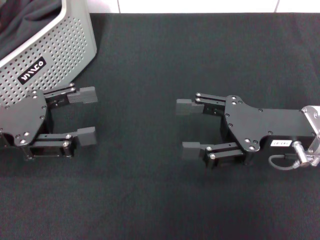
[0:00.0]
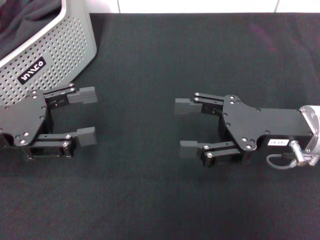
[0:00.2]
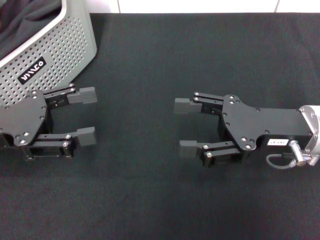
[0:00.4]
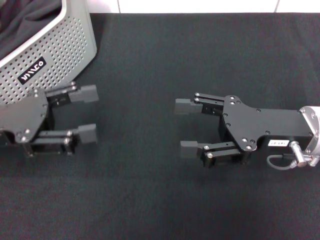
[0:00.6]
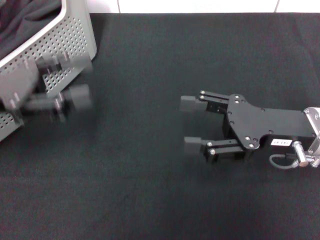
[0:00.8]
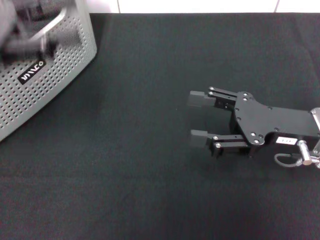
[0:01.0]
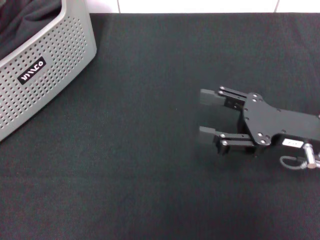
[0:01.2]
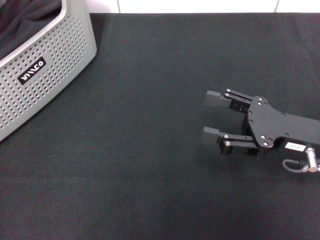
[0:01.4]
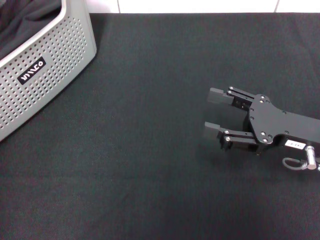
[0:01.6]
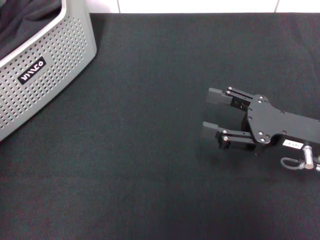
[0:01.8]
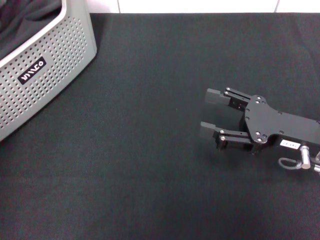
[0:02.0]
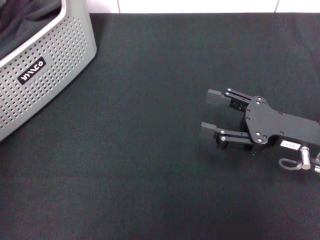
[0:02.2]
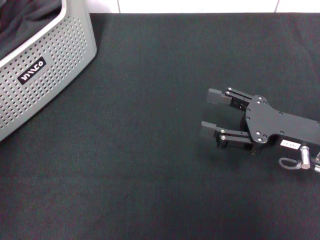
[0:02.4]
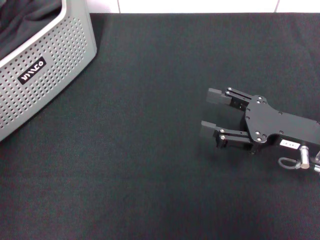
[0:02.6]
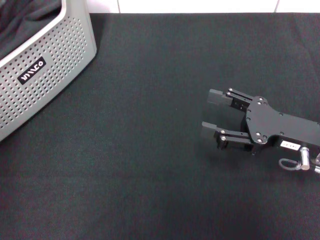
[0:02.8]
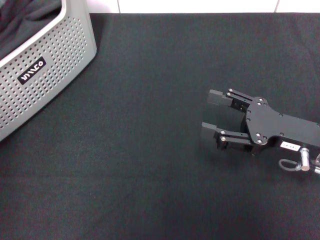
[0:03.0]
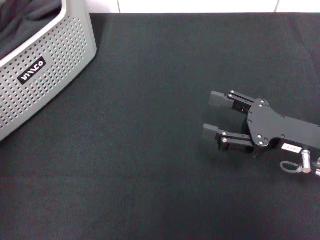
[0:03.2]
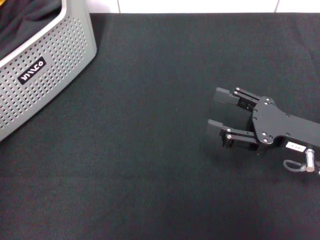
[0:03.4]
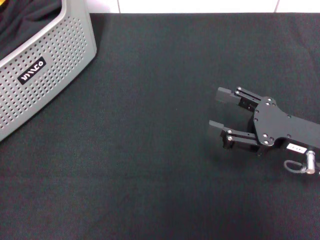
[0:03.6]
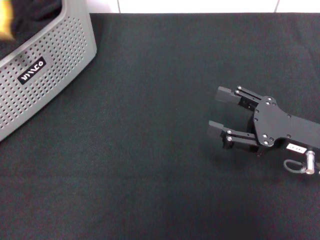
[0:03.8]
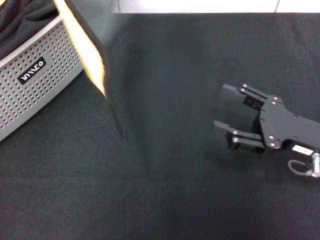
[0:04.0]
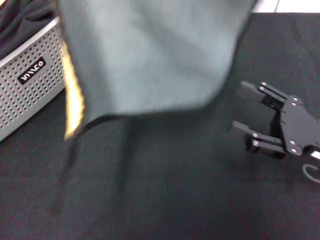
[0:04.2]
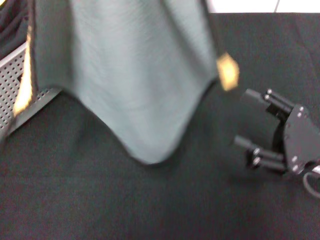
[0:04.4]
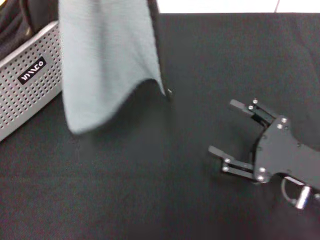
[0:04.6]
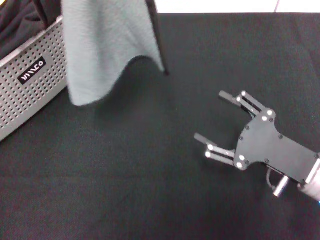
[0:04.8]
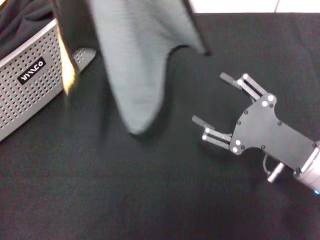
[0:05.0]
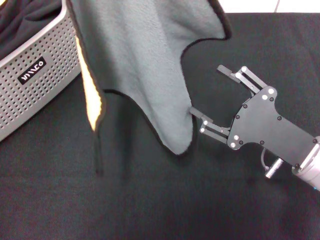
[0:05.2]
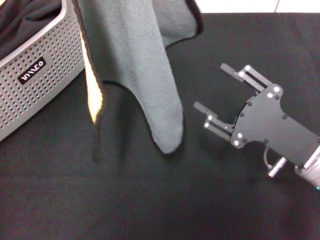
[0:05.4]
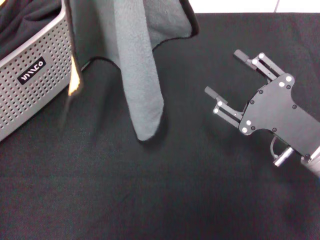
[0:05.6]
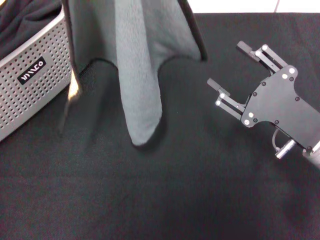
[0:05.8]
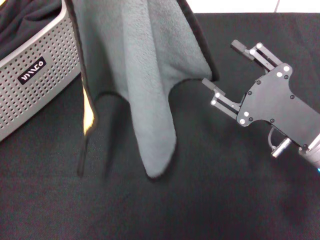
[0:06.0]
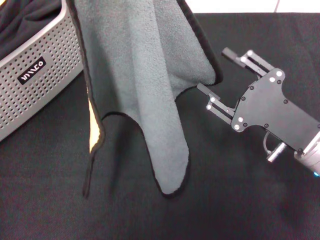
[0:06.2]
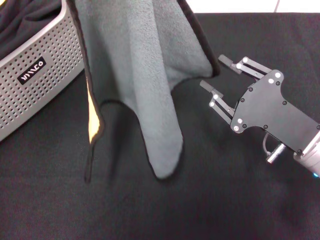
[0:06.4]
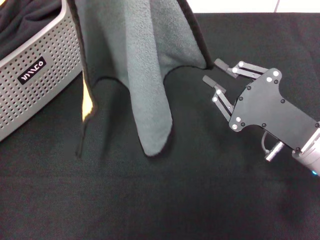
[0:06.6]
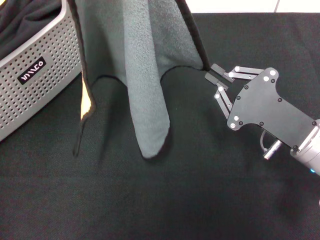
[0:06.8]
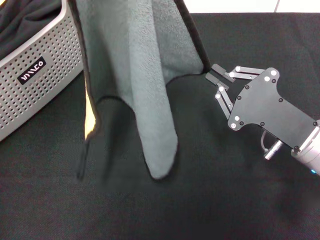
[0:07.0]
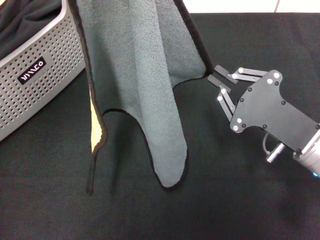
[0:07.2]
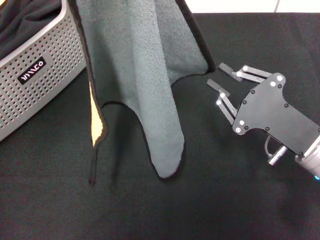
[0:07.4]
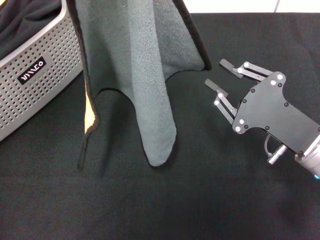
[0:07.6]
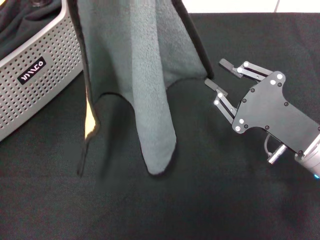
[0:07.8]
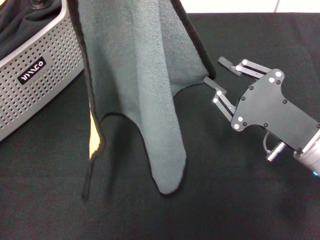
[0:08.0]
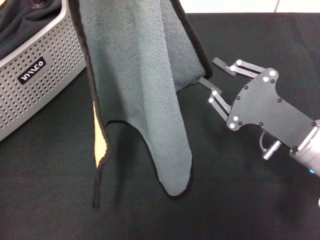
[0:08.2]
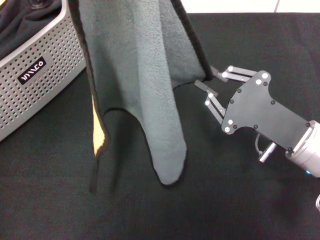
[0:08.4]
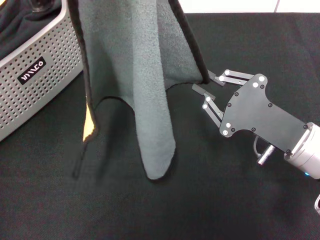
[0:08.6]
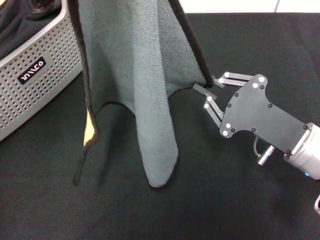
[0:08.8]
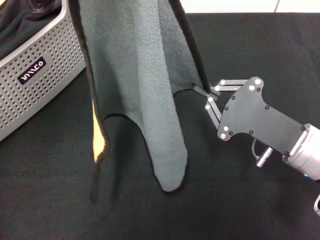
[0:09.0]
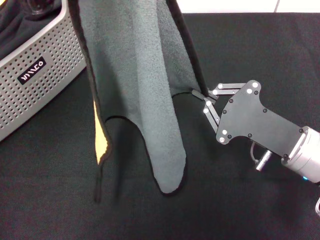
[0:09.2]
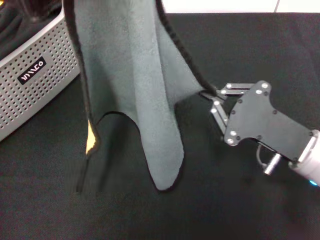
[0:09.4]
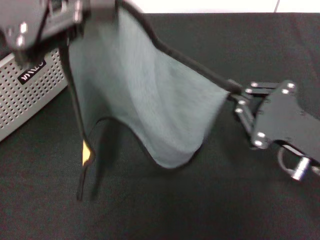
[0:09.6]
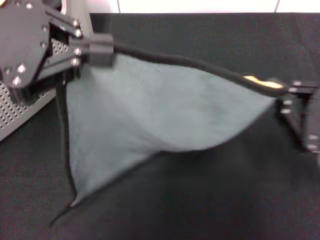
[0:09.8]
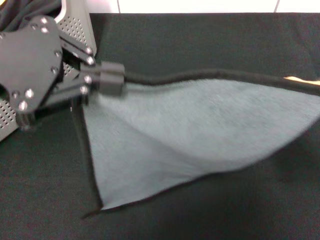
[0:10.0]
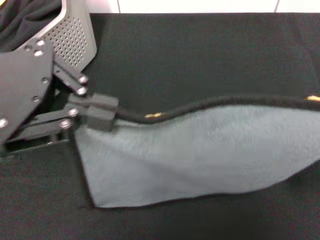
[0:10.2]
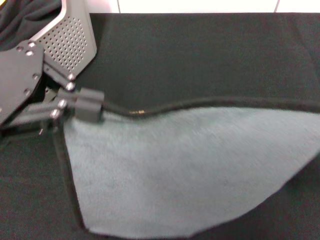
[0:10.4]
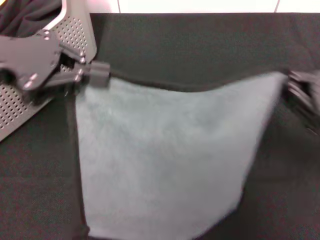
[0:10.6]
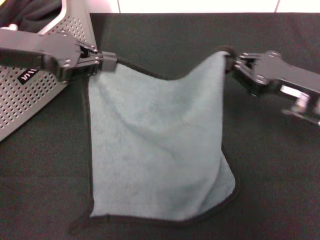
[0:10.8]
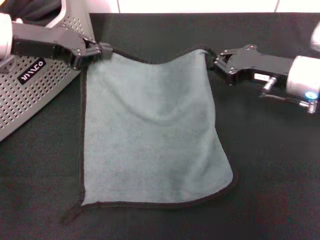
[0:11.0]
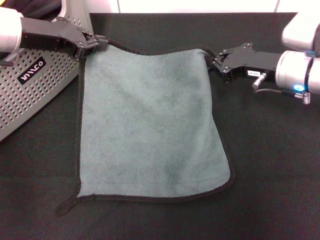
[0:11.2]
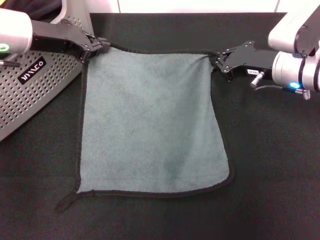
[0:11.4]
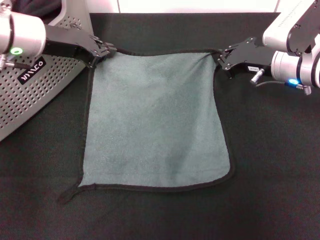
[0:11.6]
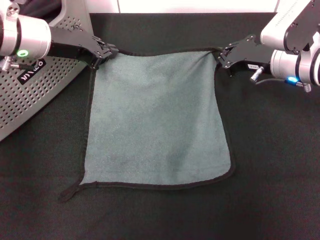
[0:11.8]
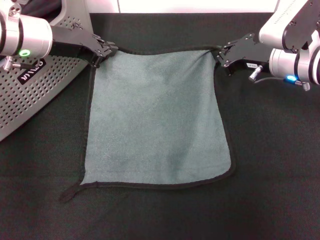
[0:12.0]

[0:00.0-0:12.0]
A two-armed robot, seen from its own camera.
Task of the whole recording: pick up the towel from the storage box and lay it flat on the black tablecloth.
Step, 0:00.0 to 0:03.2: Pick up a towel with the left gripper.
Step, 0:03.4 to 0:09.0: Spread the towel flat with the left gripper.
0:00.0 to 0:01.6: The left gripper travels upward by about 20 cm.
0:03.0 to 0:04.4: The left gripper shifts approximately 15 cm backward and upward.
0:04.4 to 0:06.0: The right gripper ends up roughly 5 cm from where it was.
0:06.0 to 0:07.6: The right gripper closes its fingers.
0:07.6 to 0:09.0: The grippers make only small movements.
0:09.0 to 0:10.4: The left gripper moves about 5 cm. Meanwhile the right gripper travels to the right and backward by about 10 cm.
0:10.4 to 0:12.0: The left gripper shifts approximately 20 cm forward and downward, while the right gripper moves forward and to the left, approximately 25 cm.

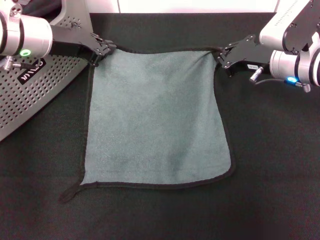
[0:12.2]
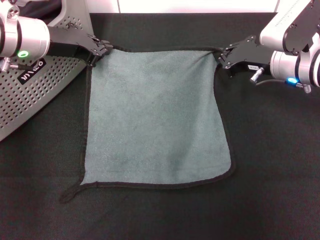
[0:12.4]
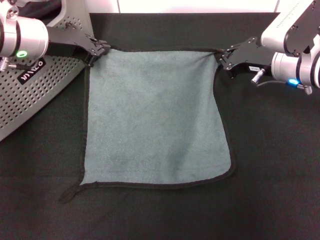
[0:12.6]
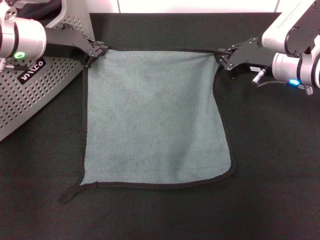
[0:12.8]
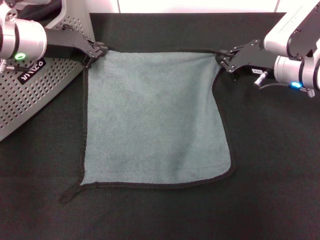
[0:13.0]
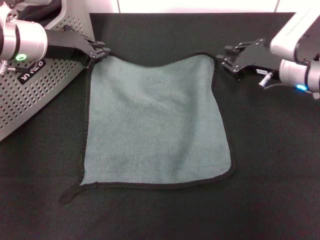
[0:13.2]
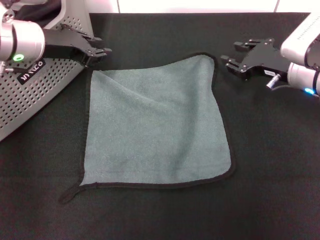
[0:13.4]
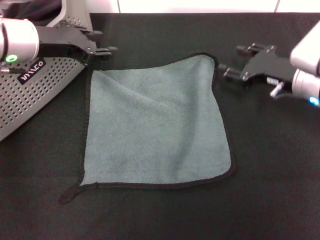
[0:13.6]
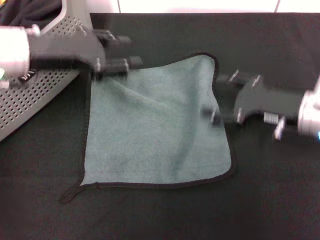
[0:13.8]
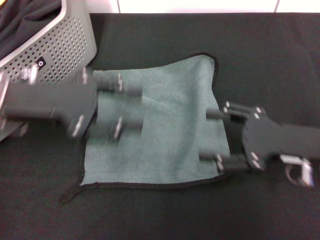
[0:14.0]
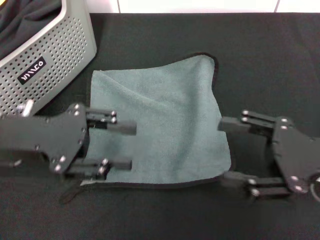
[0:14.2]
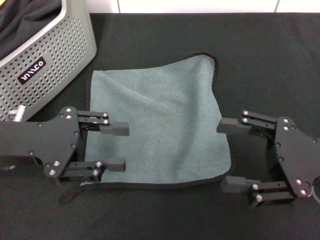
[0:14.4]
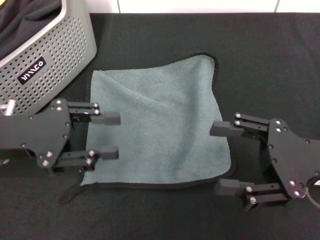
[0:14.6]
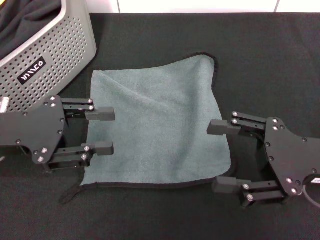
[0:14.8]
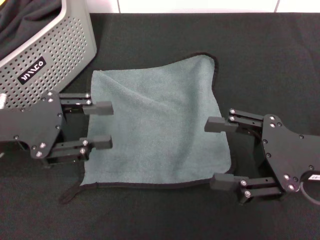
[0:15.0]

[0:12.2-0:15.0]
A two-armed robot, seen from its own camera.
Task of the whole recording: pick up the towel from the storage box and lay it flat on the black tablecloth.
0:12.2 to 0:13.6: The left gripper opens, while the right gripper opens up.
0:13.6 to 0:15.0: The grippers both shift backward by about 15 cm. The right gripper opens its fingers.

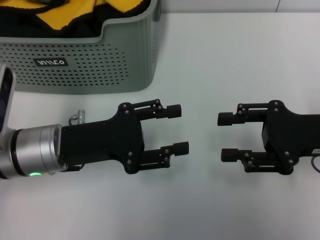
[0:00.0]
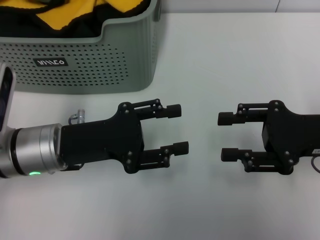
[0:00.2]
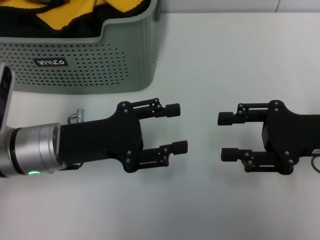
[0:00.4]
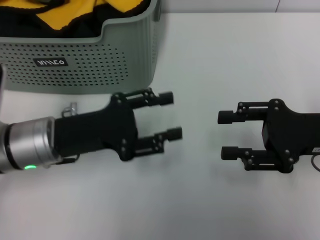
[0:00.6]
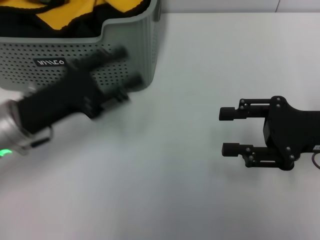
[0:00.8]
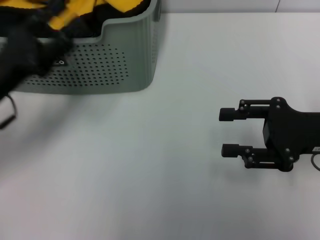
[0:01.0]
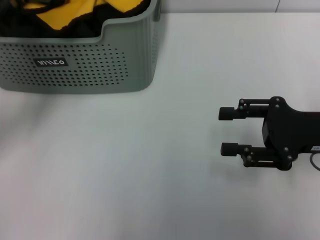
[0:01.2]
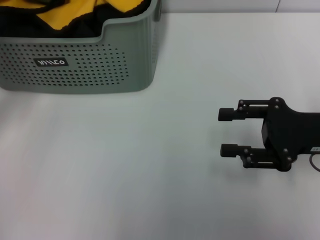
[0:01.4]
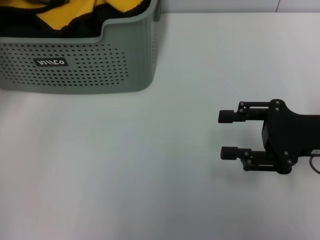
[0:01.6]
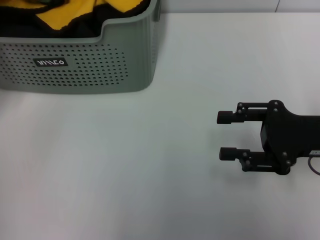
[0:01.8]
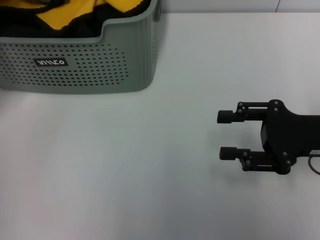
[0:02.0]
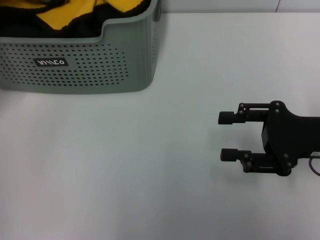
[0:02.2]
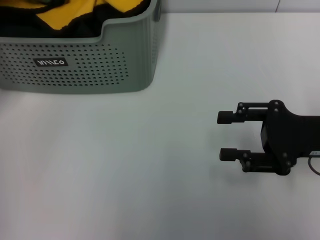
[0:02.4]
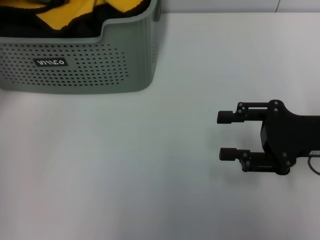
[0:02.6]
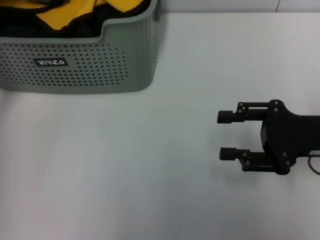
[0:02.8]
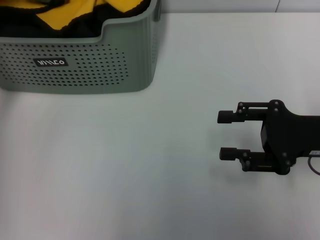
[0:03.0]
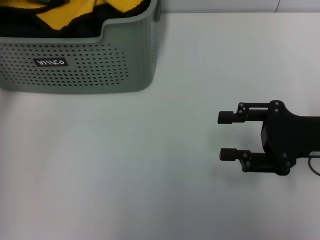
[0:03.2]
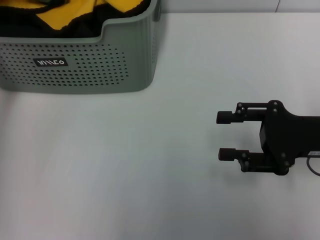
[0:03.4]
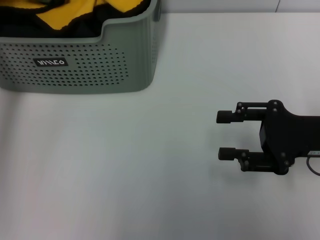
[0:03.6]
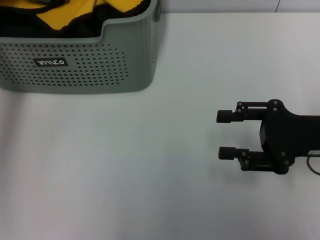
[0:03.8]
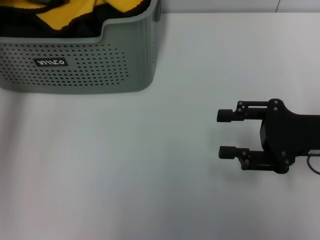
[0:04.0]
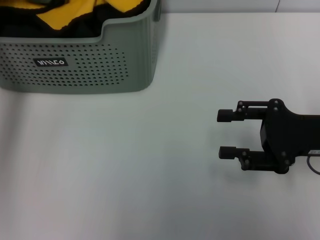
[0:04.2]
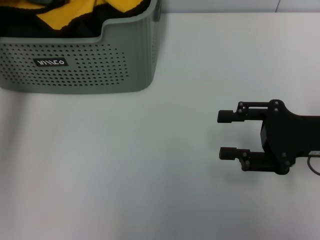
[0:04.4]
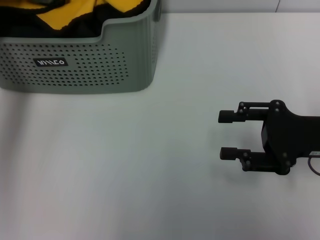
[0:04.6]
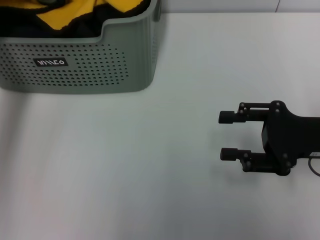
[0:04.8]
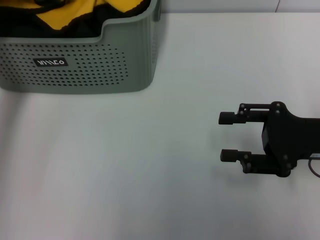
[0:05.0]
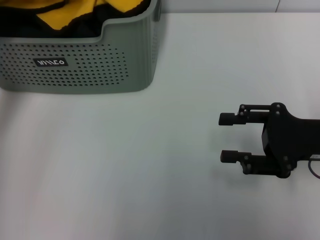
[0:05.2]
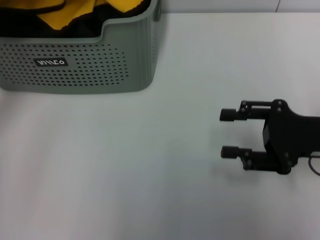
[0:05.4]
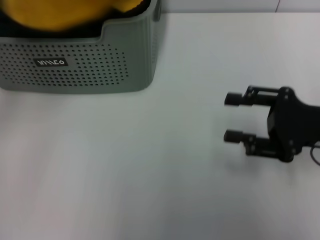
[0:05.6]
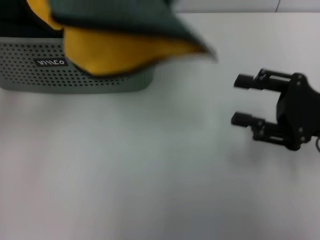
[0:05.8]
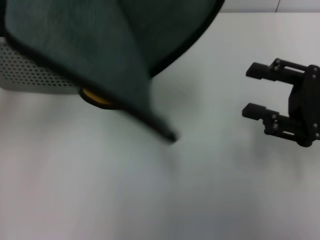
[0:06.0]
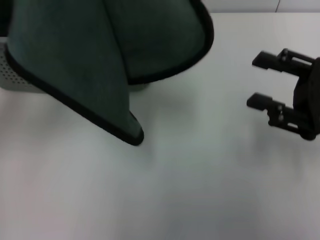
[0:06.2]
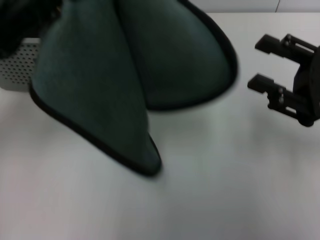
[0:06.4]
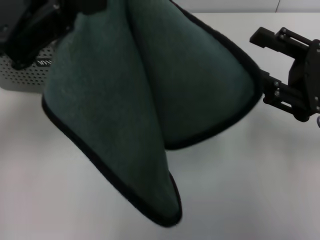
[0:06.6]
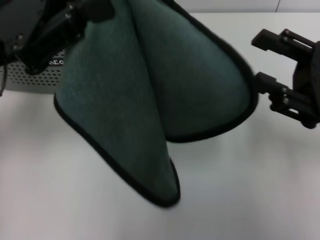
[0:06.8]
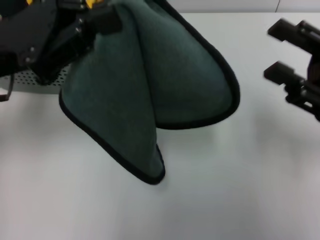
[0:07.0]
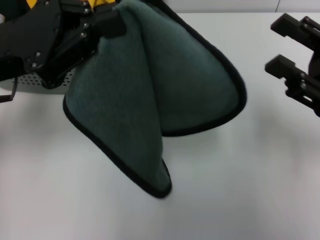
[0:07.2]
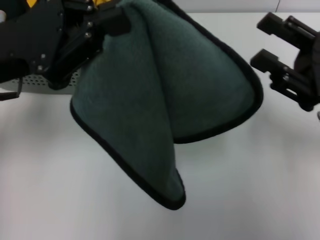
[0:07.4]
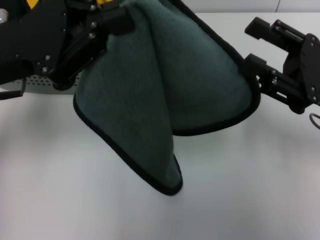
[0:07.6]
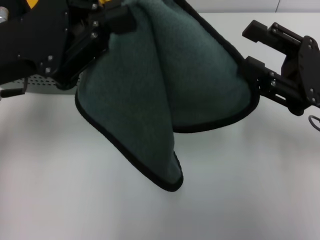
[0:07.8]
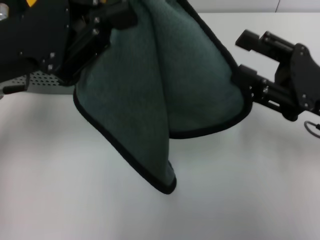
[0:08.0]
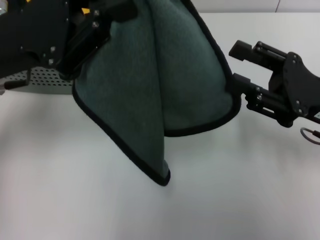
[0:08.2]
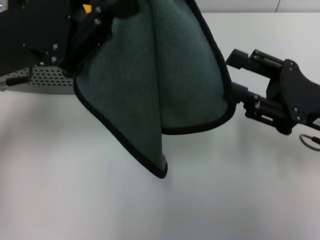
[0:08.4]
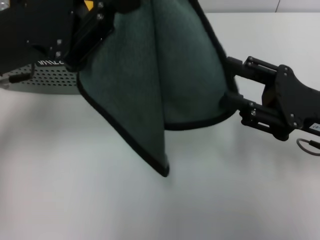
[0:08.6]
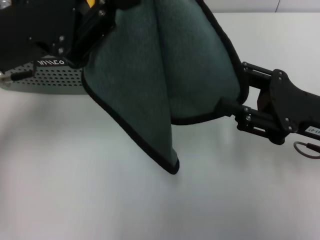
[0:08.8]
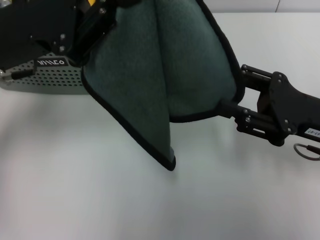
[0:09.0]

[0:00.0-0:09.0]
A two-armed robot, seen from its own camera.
Task of the whole recording: pick up the towel from the storage box and lay it flat on the table.
Step, 0:00.0 to 0:05.2: Pick up a towel with the left gripper.
0:00.0 to 0:01.6: The left gripper moves to the left, forward and upward, about 15 cm.
0:01.6 to 0:03.0: The left gripper is displaced upward by some 5 cm.
0:03.0 to 0:04.4: The grippers stay close to where they were, moving slightly.
0:04.4 to 0:06.0: The left gripper travels backward and upward by some 15 cm, and closes its fingers.
0:06.0 to 0:07.6: The left gripper shifts roughly 5 cm downward.
